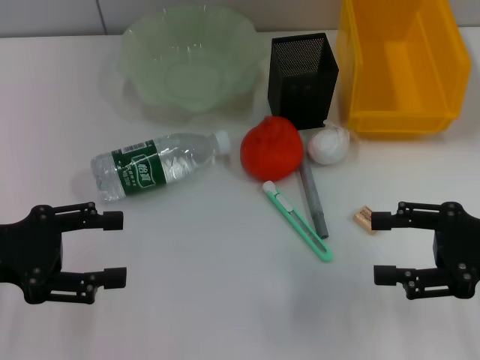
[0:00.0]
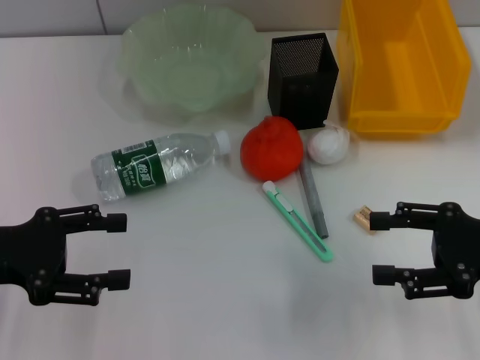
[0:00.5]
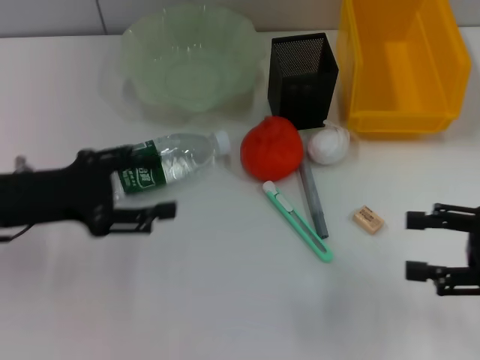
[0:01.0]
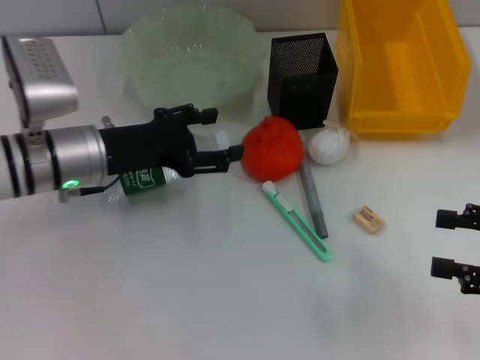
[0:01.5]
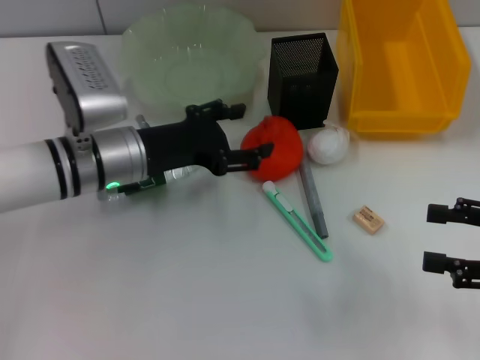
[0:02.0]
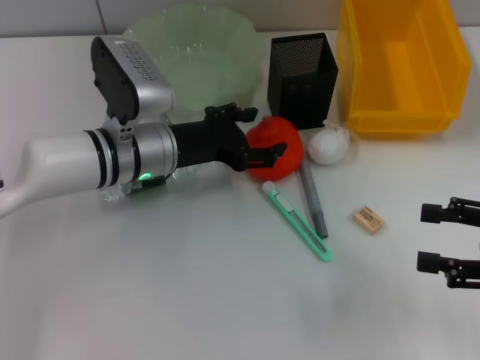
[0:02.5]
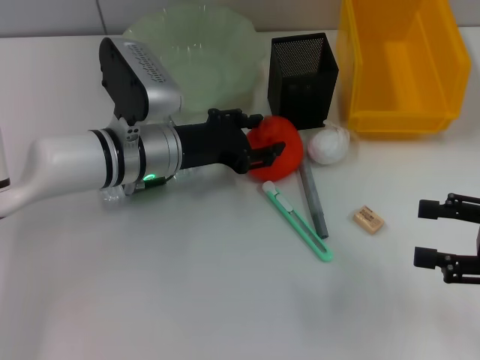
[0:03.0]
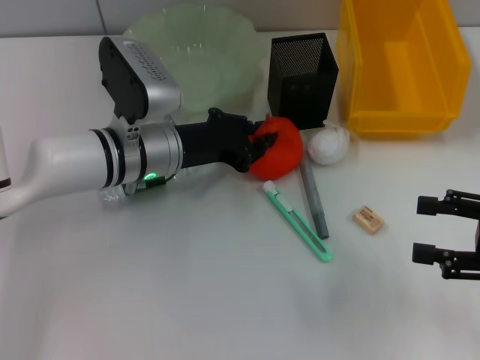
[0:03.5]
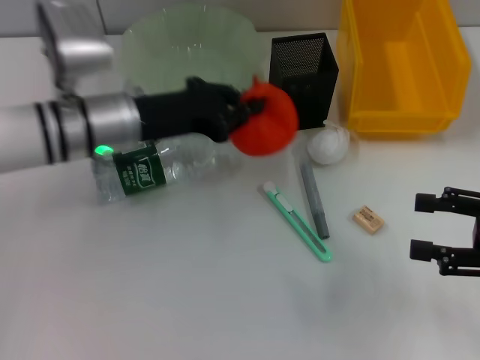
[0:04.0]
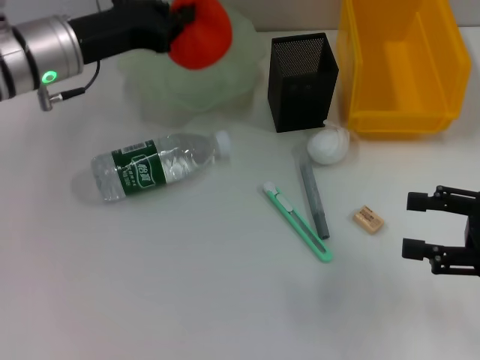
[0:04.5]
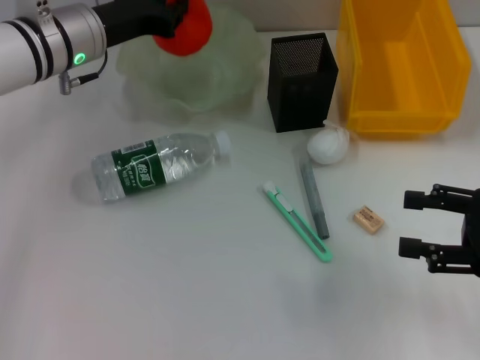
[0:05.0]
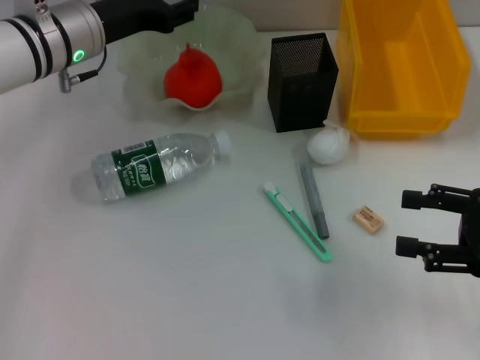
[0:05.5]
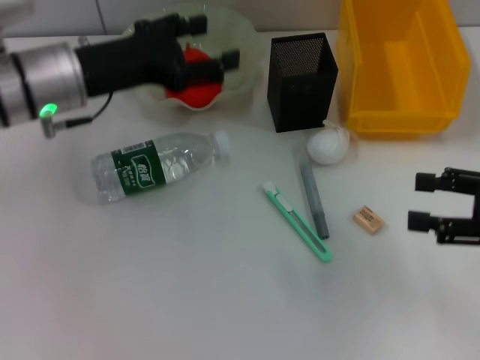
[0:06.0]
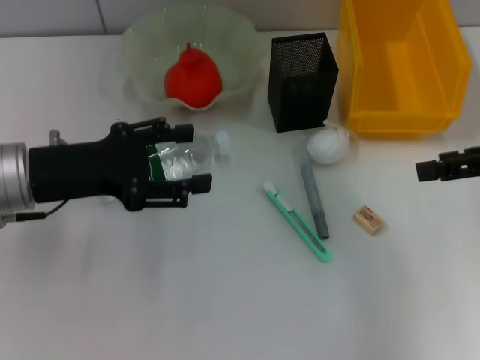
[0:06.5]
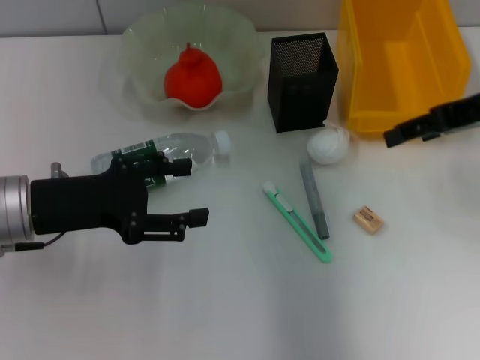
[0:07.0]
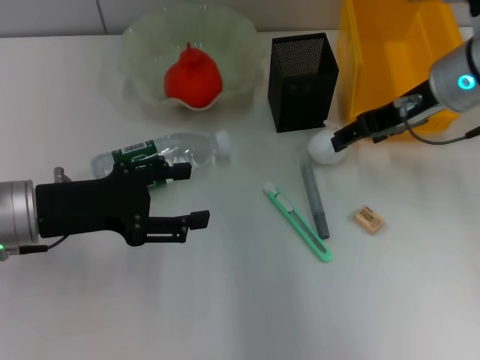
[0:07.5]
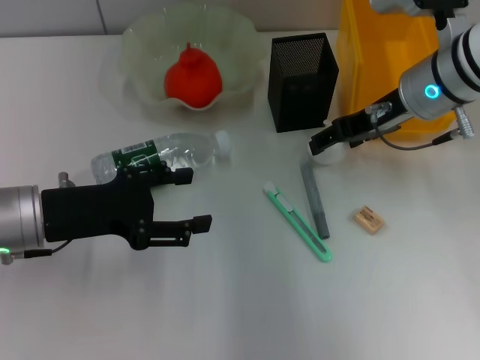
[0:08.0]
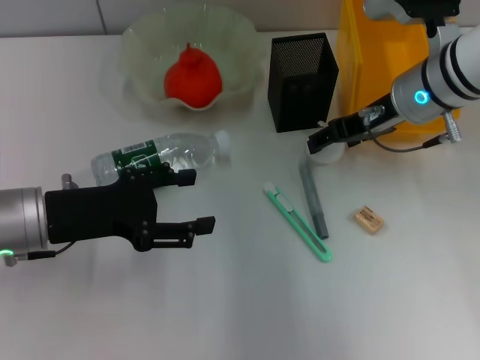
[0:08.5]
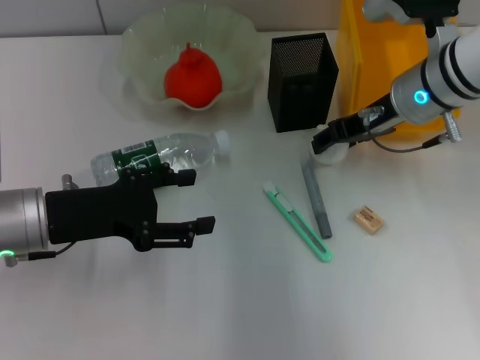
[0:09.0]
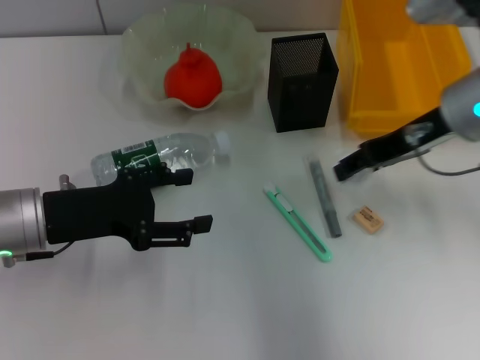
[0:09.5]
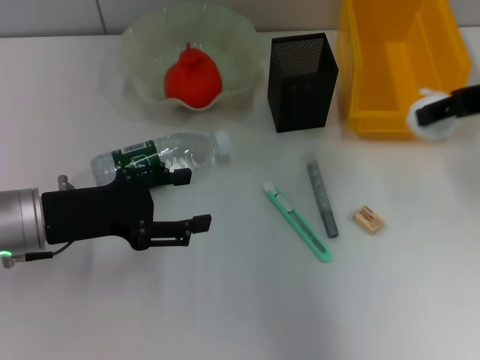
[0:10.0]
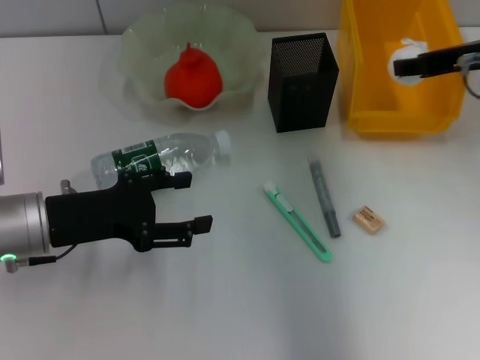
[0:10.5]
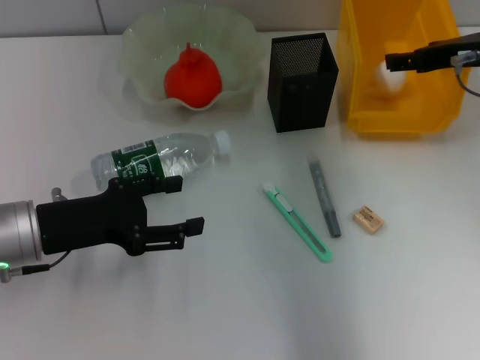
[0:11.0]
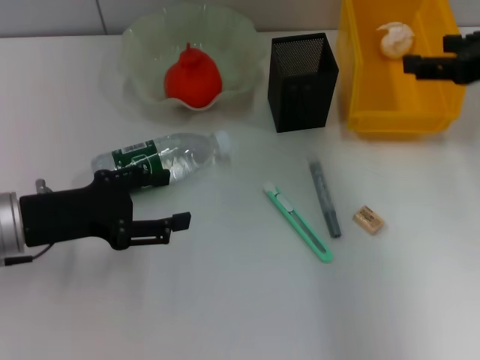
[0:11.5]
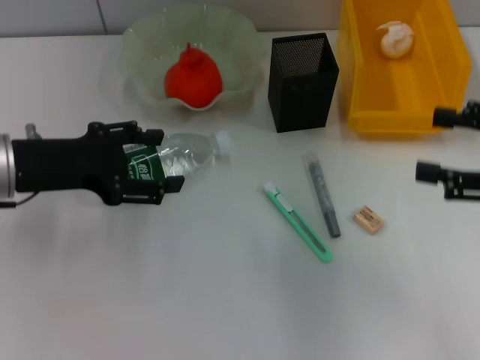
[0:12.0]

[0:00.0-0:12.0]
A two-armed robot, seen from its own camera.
Step, 0.0 to 3.5 s: Grab the orange with the left hand.
Step, 4.0 to 5.0 s: Place the orange into the fruit bowl with the left hand.
Step, 5.5 to 9.0 s: Grab the paper ball with the right hand.
Step, 9.5 to 10.5 s: Place the paper ball into the trash can with the right hand.
0.0 to 2.0 s: The left gripper heads to the right and forward, covering some 20 cm.
2.0 to 4.0 s: The left gripper closes its fingers.
4.0 to 6.0 s: The left gripper opens.
6.0 to 8.0 s: The left gripper moves backward and downward, roughly 10 cm; the right gripper moves to the left and forward, about 20 cm.
8.0 to 10.0 s: The right gripper heads upward, to the right and backward, covering roughly 15 cm.
10.0 to 12.0 s: The left gripper heads upward, covering some 5 cm. The right gripper travels backward, downward and to the right by roughly 15 cm, and opens up.

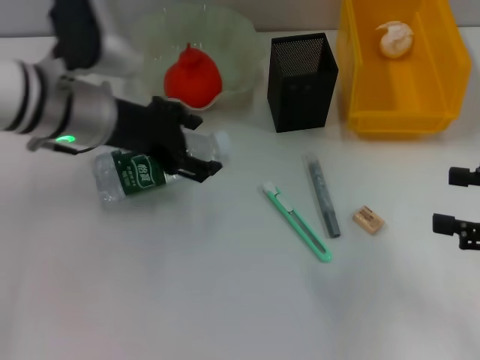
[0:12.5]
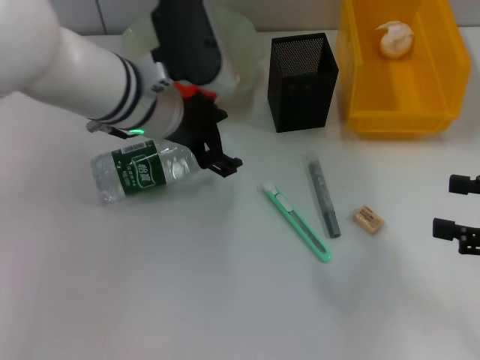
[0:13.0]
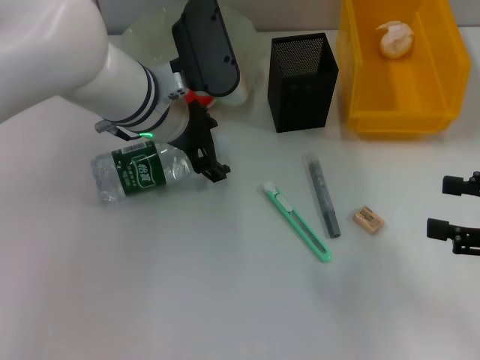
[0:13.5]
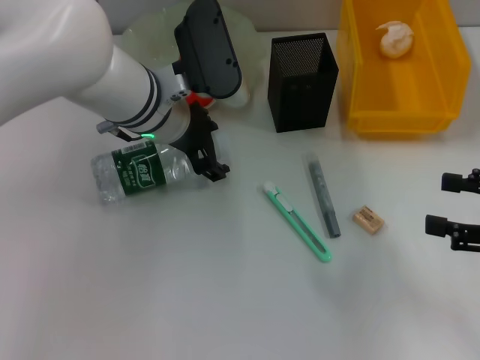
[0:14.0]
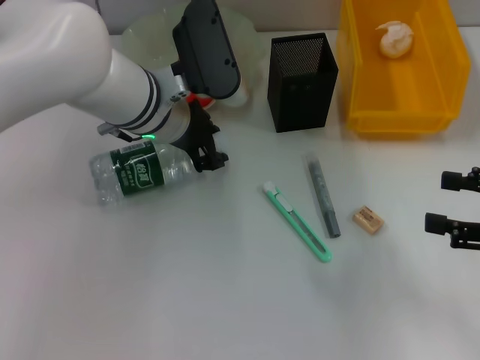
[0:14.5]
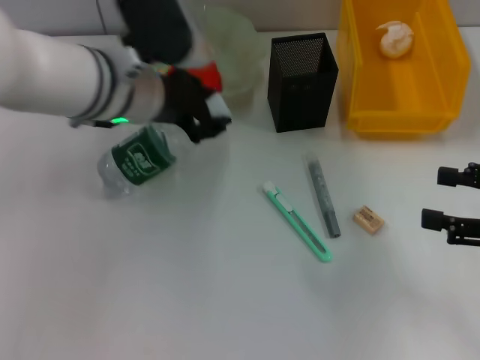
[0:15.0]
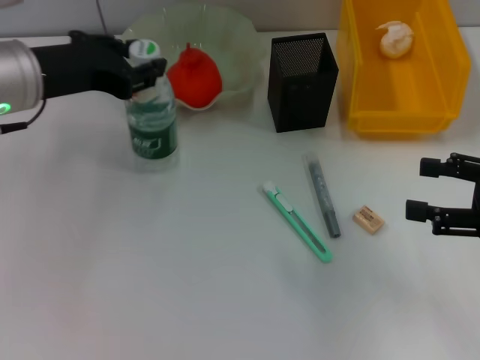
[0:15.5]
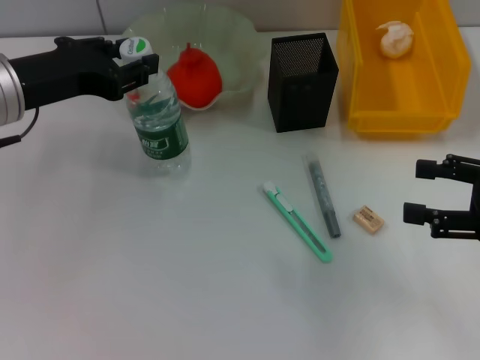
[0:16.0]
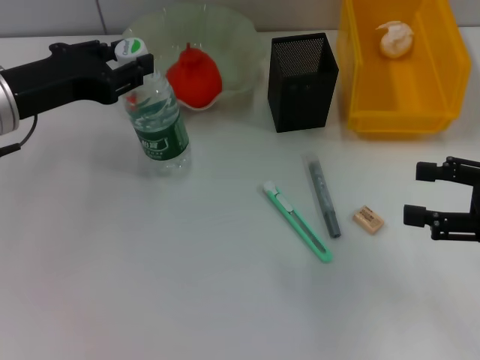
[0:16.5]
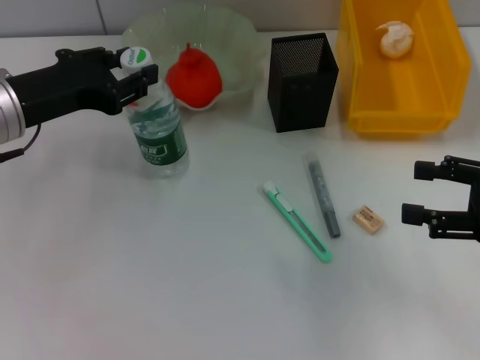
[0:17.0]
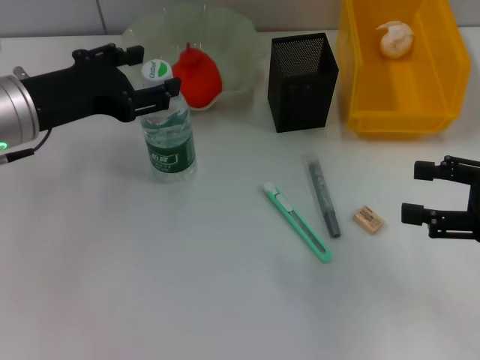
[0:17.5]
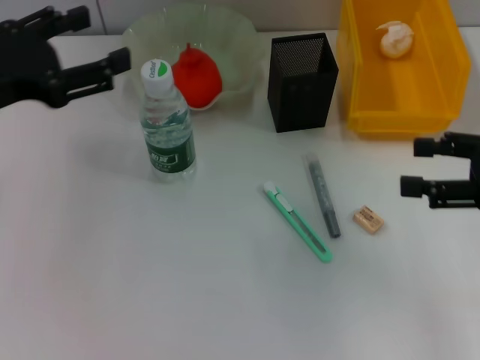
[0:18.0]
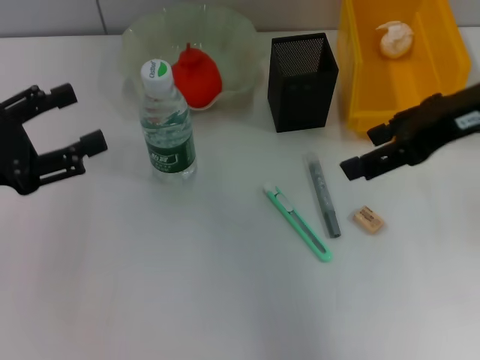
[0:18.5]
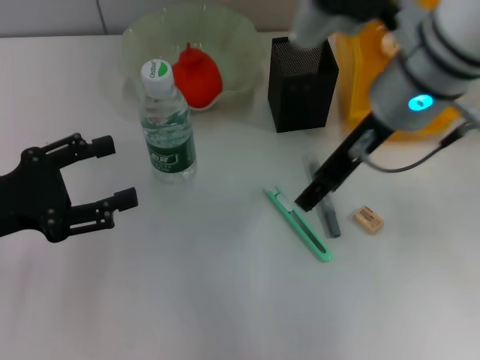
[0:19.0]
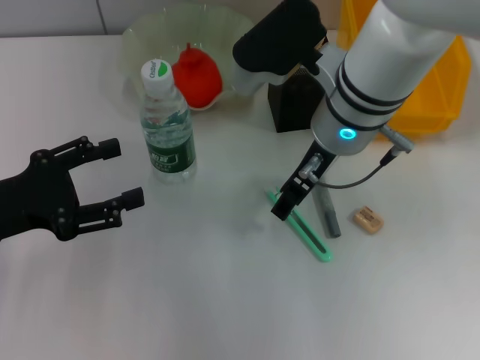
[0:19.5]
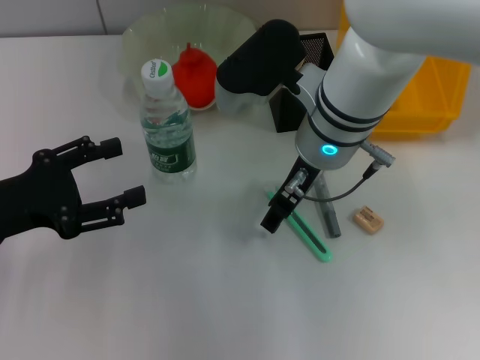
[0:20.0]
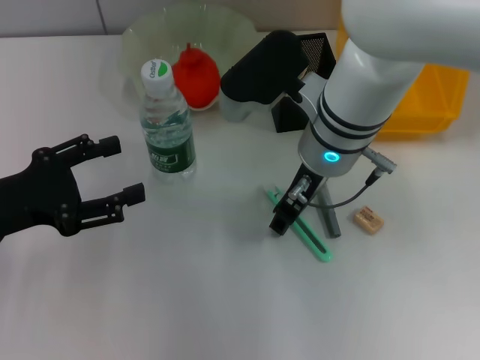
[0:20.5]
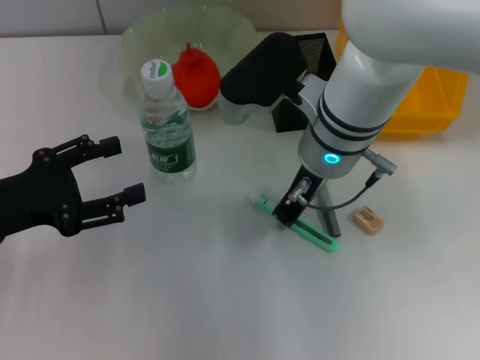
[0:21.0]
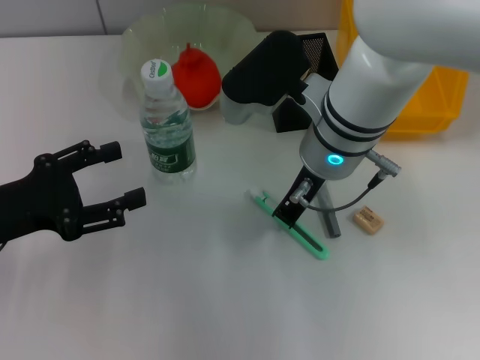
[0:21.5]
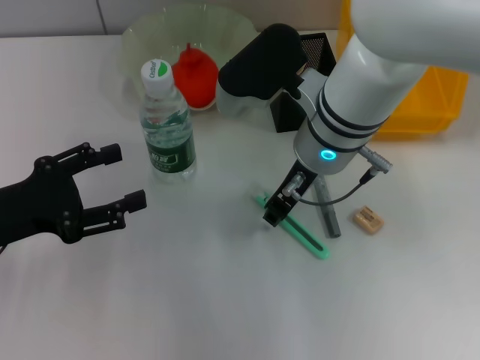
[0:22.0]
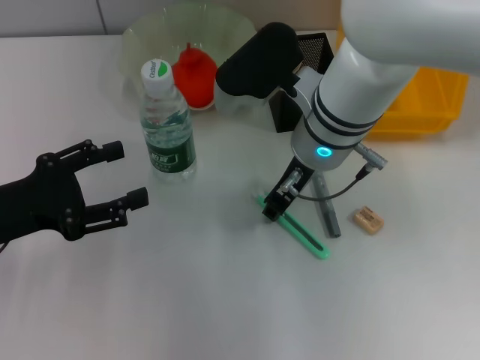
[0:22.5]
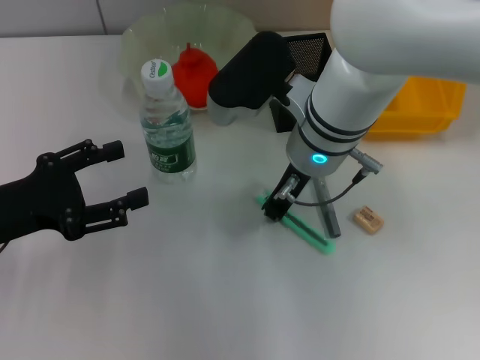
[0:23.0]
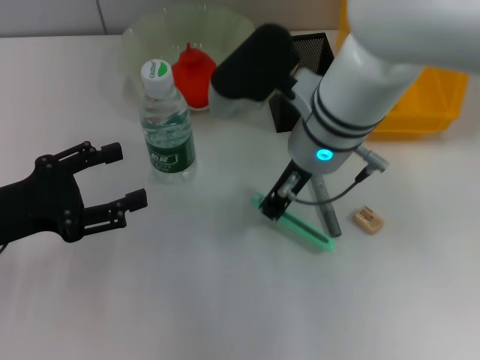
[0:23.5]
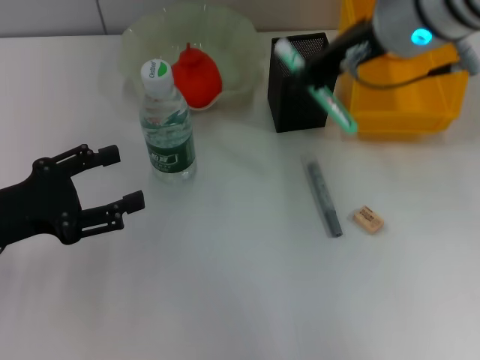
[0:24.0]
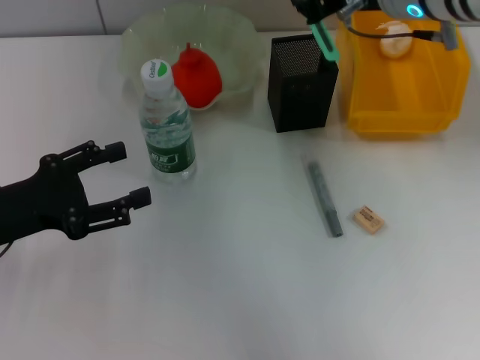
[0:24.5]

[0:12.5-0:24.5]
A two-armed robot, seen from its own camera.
Step, 12.5 to 14.5 s: Grab the water bottle with the left hand.
Step, 15.0 to 17.0 s: Place the water bottle on the table with the left hand.
Step, 17.5 to 23.0 s: Grab the blue utility knife with the right hand.
12.5 to 14.5 s: The left gripper travels to the right by approximately 5 cm, and closes.
14.5 to 16.5 s: The left gripper goes roughly 15 cm to the left and backward.
16.5 to 18.5 s: The left gripper is displaced backward and to the left by approximately 10 cm, and opens its fingers. The right gripper shifts some 20 cm to the left, upward and forward.
18.5 to 20.5 s: The right gripper goes some 20 cm to the left and downward.
20.5 to 22.5 s: The right gripper closes.
22.5 to 24.5 s: The right gripper shifts roughly 10 cm upward and to the right, and closes up.

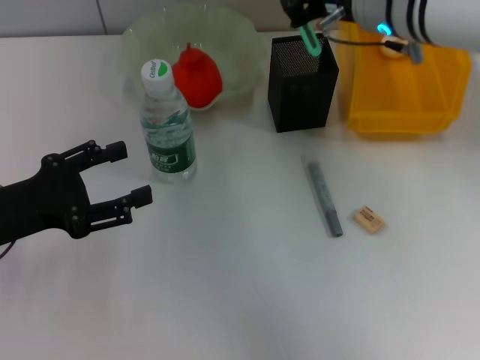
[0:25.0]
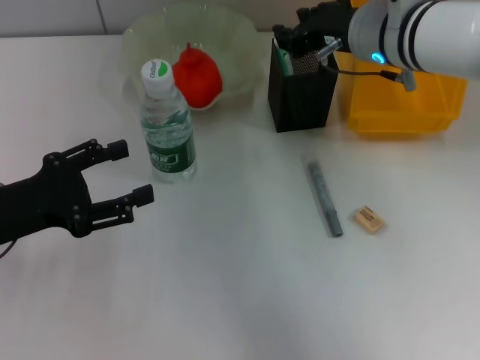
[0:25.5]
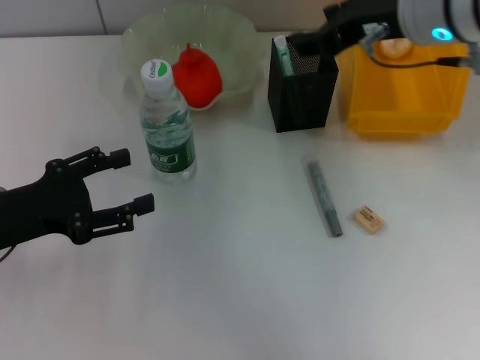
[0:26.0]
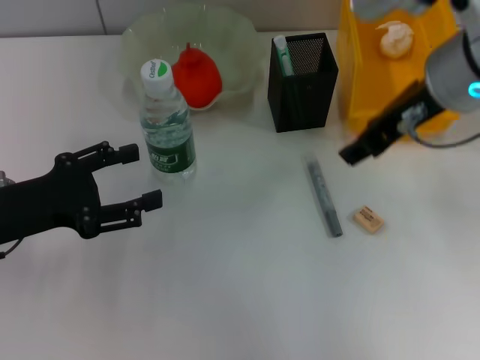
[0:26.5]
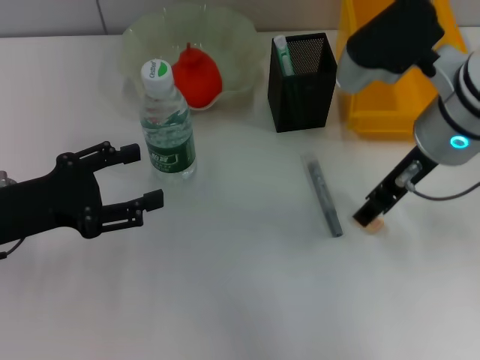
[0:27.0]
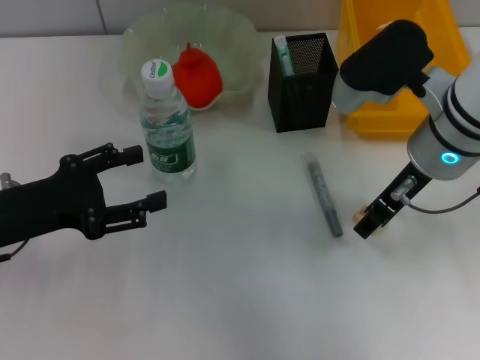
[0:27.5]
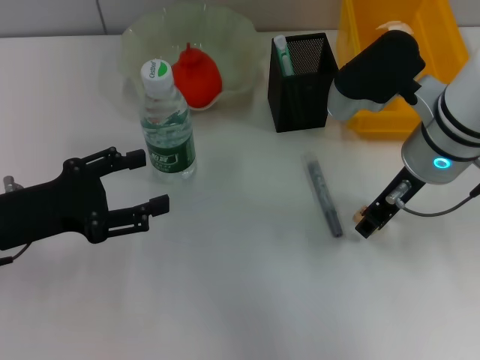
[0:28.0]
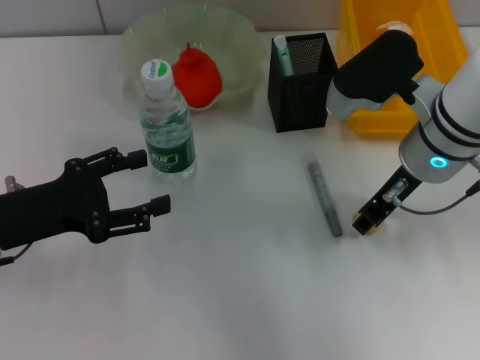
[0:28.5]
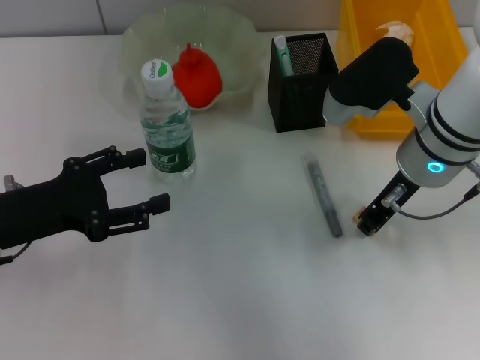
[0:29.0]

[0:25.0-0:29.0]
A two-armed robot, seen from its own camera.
Step, 26.0 to 28.5 s: Grab the eraser with the right hand.
25.0 to 27.0 s: The right gripper heads backward, covering roughly 5 cm, and opens its fingers.
27.0 to 29.0 s: The right gripper closes up.
